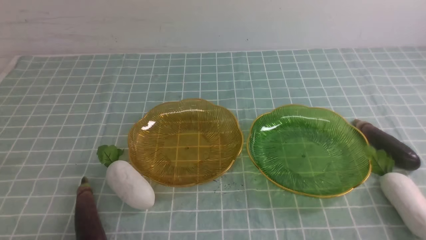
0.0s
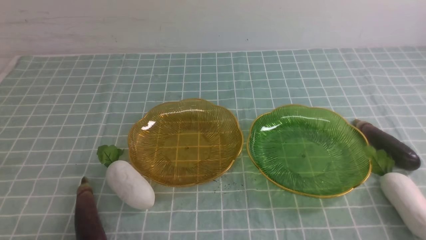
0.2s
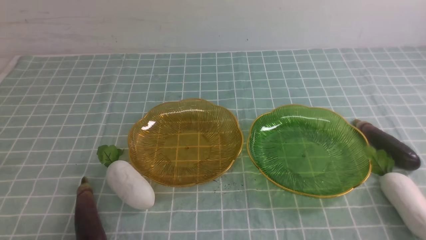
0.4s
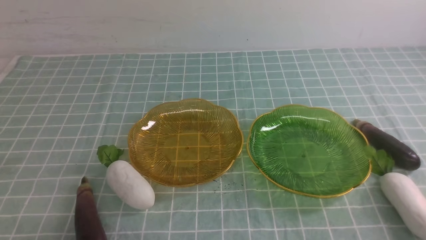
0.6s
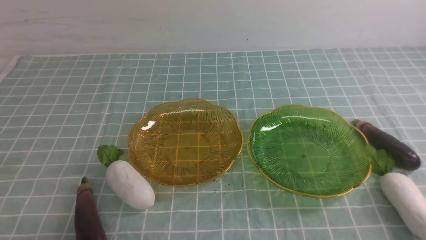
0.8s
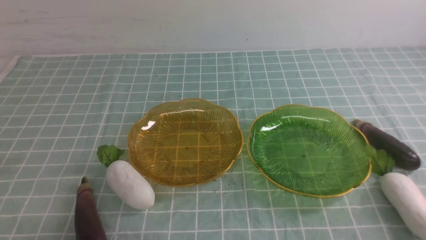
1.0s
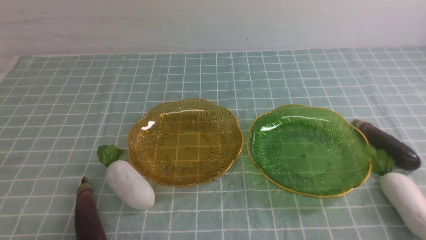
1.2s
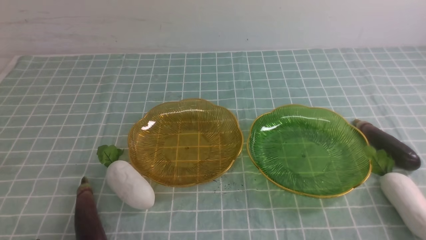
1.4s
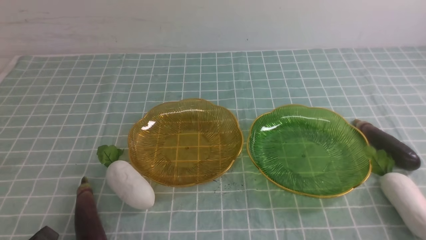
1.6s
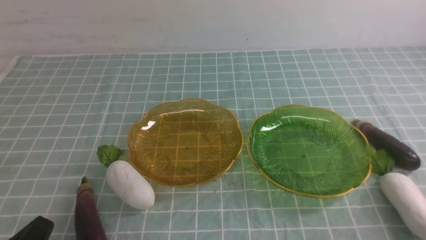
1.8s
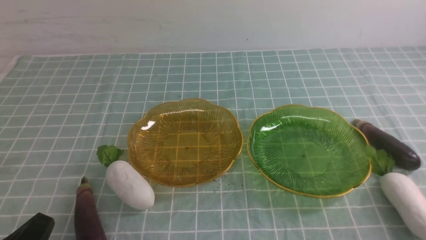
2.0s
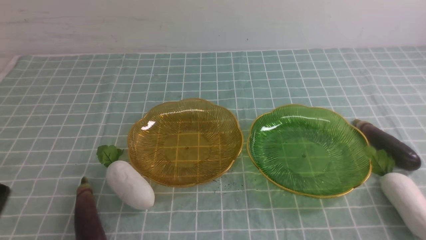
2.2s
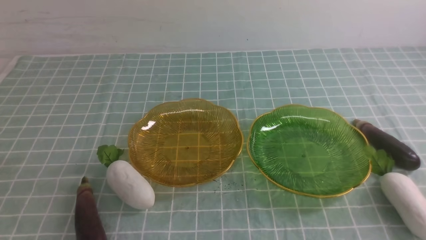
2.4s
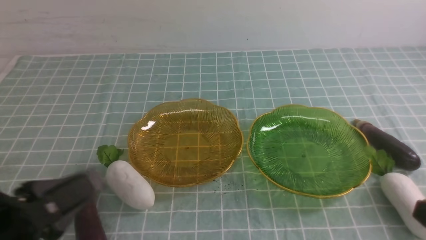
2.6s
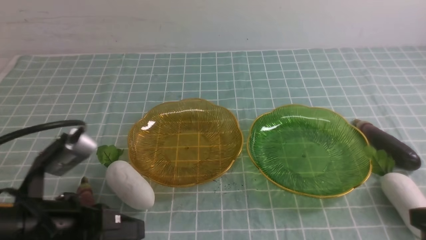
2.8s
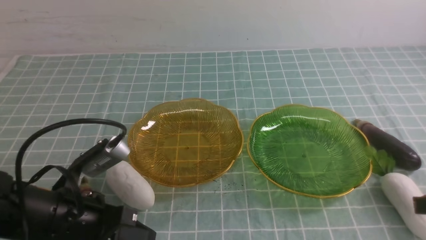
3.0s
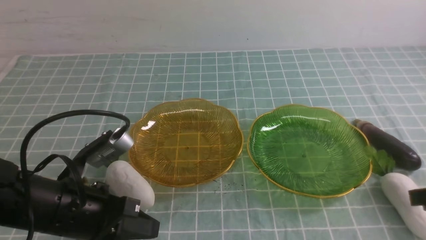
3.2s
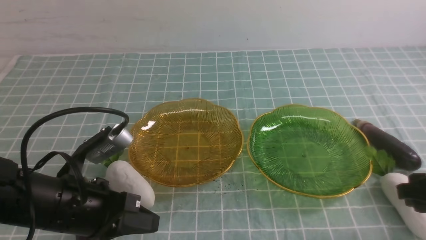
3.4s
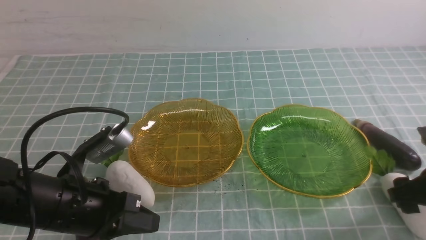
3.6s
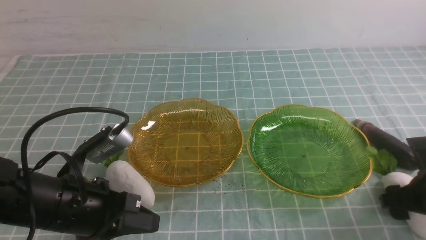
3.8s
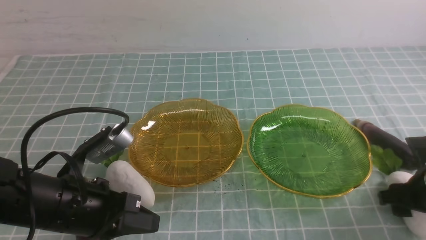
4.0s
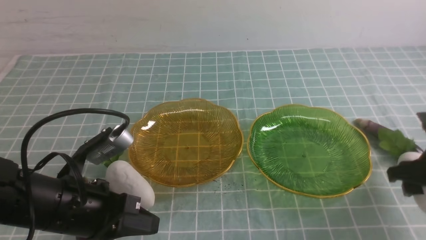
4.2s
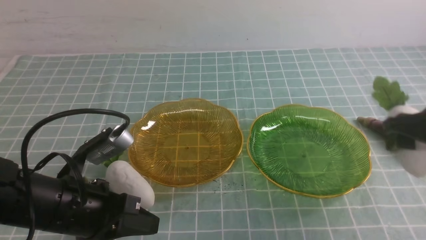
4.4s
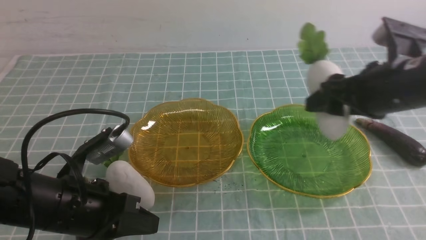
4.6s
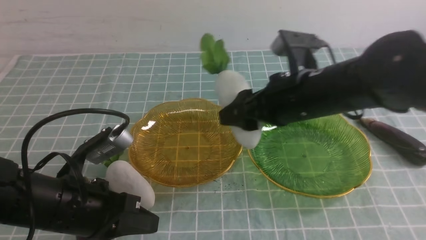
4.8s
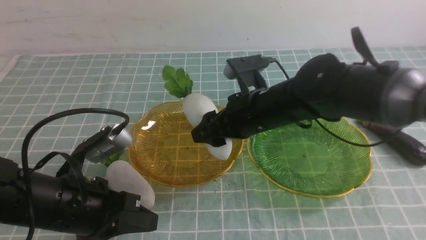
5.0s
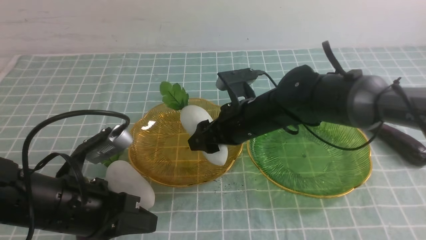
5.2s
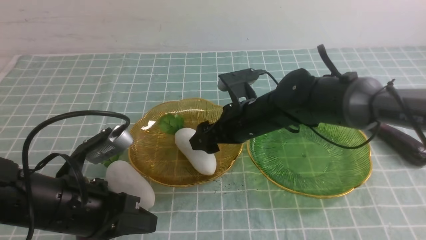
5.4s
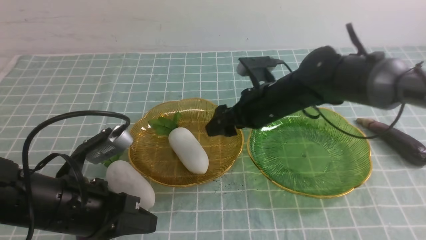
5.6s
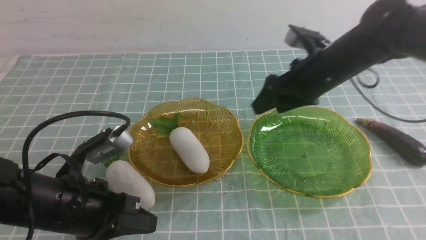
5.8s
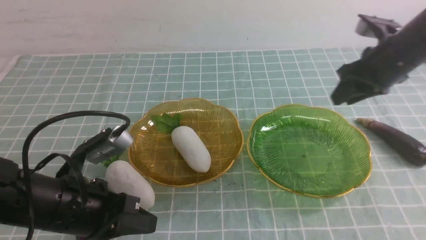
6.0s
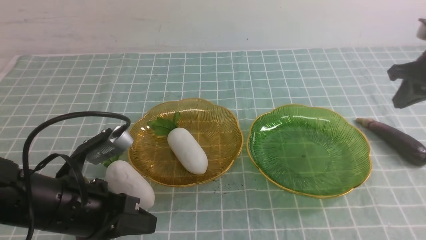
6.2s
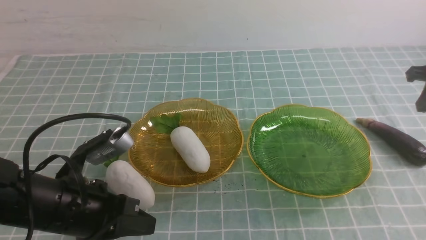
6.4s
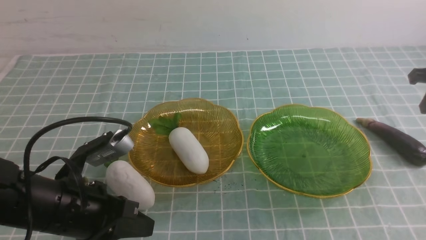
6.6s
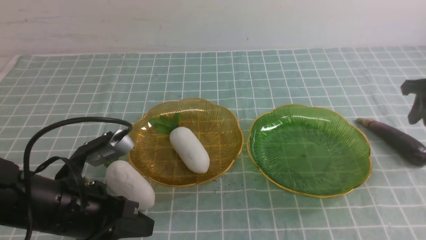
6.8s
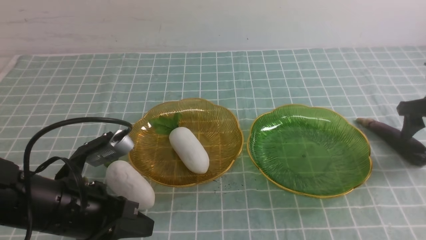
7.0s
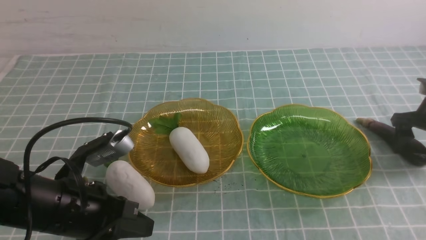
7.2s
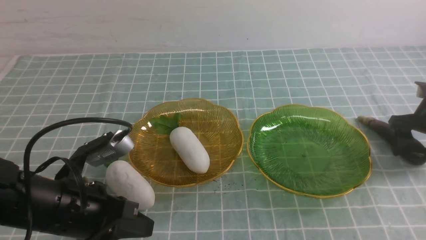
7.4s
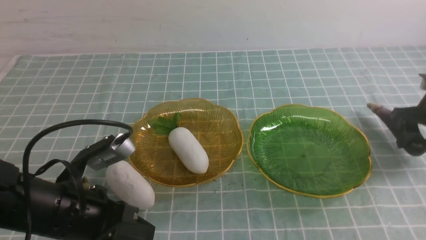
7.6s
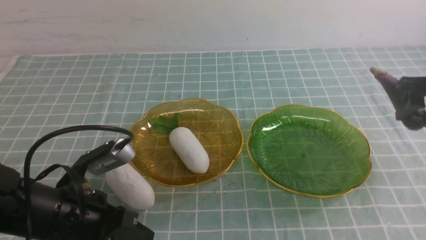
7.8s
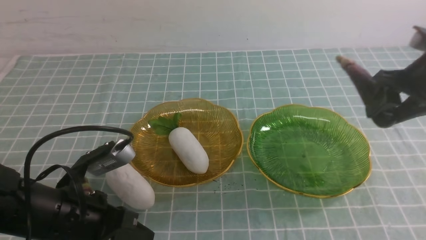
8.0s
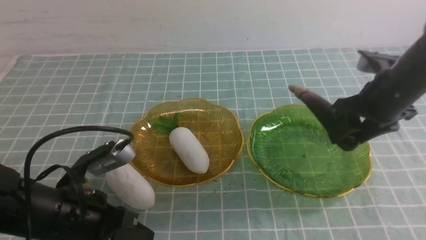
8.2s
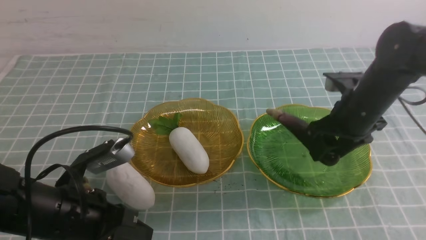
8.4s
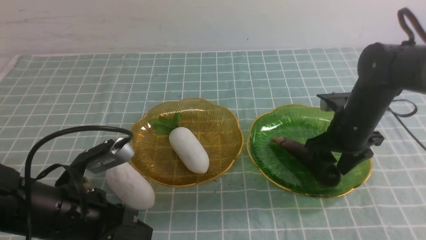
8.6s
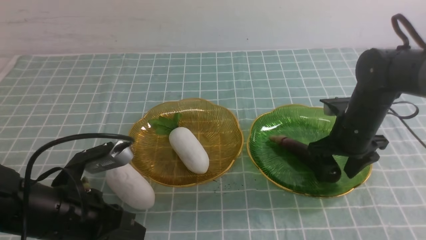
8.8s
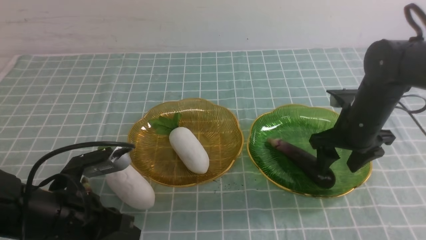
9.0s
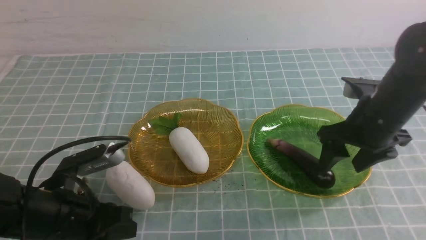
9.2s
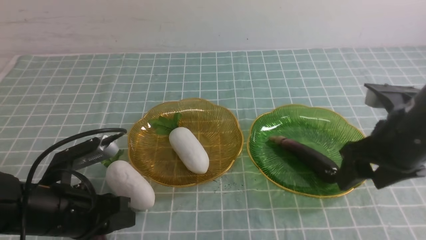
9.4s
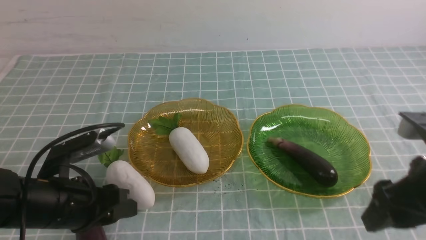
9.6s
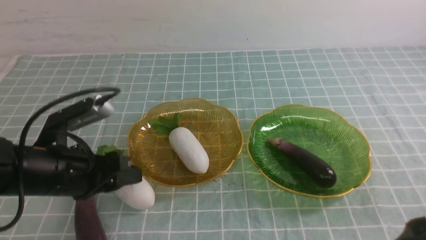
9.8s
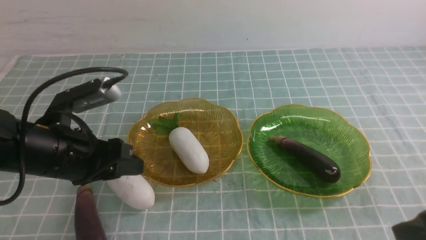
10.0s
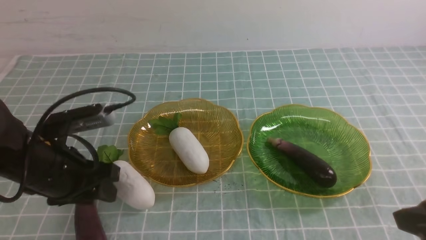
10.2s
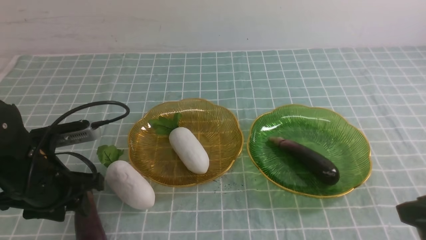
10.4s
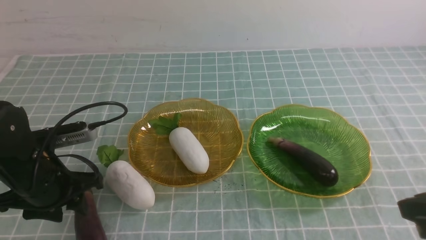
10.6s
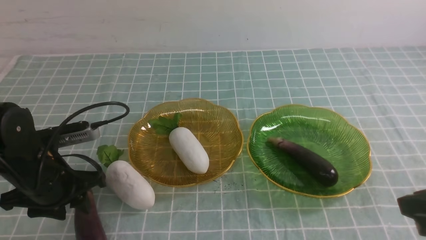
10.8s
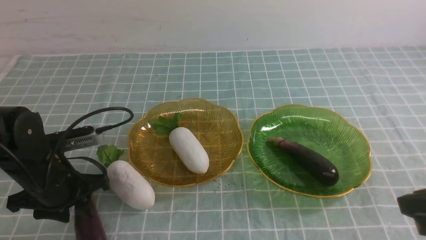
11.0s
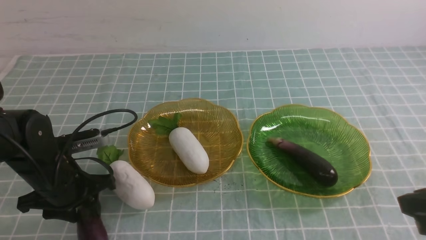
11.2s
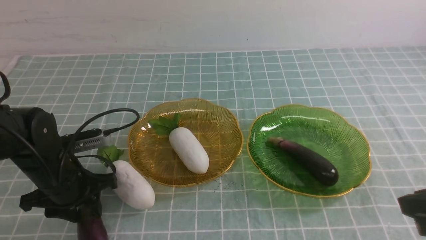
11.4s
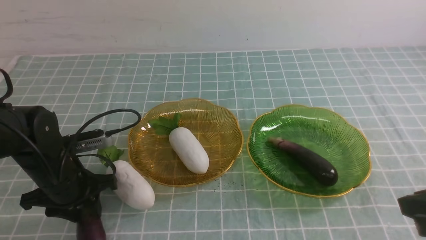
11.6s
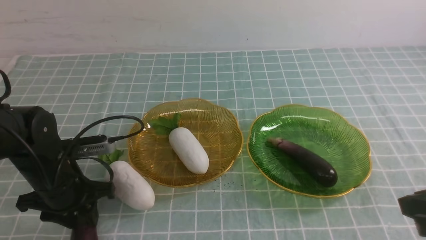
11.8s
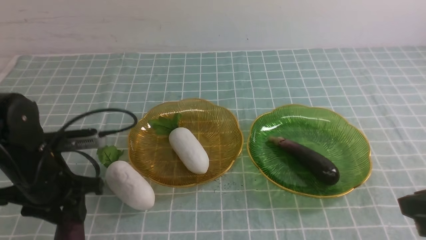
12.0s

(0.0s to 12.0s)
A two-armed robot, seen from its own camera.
Step, 0.0s - 5.4s: use the right arm to grab a radish and put it into the left plate.
Step, 5.6s - 9.0s: use the right arm to grab an eggplant and put it into the right plate.
1.6s - 3.0s: The right gripper goes about 15 cm forward and upward; the left gripper heads forward and to the right, covering roughly 15 cm.
3.0s - 4.4s: The right gripper heads forward, covering about 10 cm, and opens up.
4.4s - 6.0s: The right gripper shifts about 10 cm forward, moves roughly 20 cm to the left and comes back, and closes up.
6.0s - 7.6s: The right gripper moves to the right and downward, about 15 cm, and opens up.
7.6s - 9.0s: The right gripper goes approximately 15 cm to the left.
9.0s - 10.4s: The left gripper moves forward, some 5 cm, and opens its fingers; the right gripper moves backward, about 20 cm, and closes up.

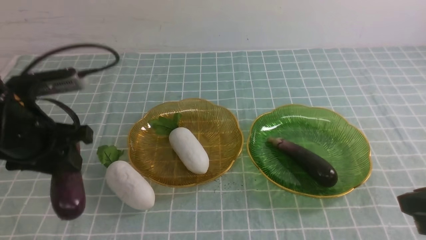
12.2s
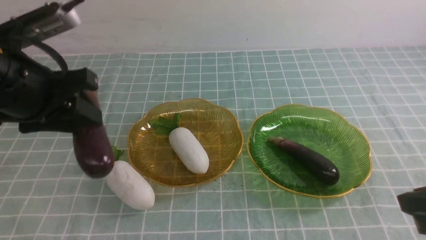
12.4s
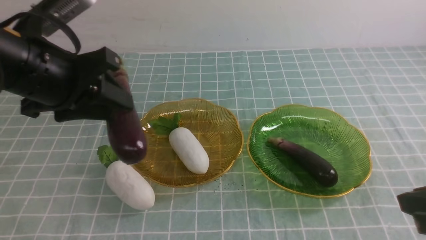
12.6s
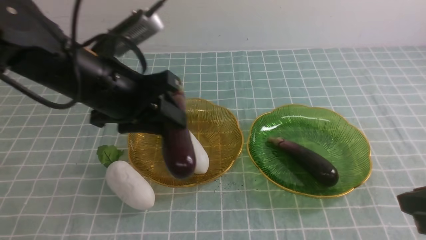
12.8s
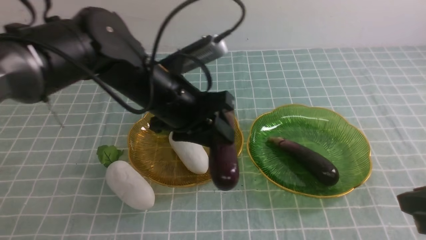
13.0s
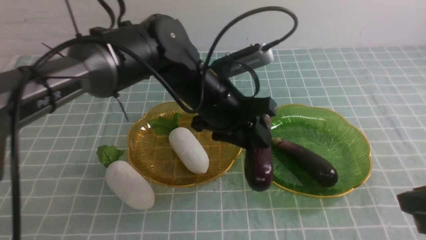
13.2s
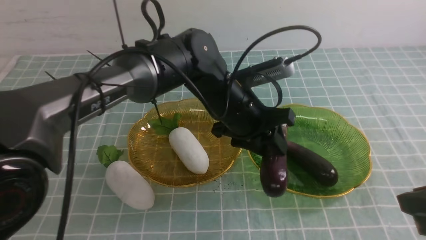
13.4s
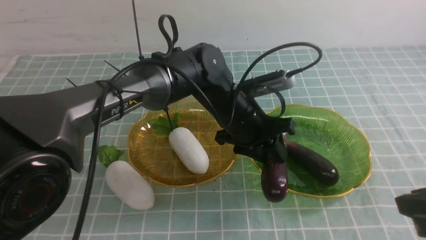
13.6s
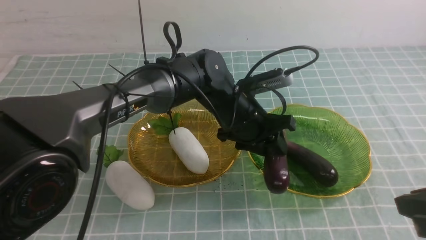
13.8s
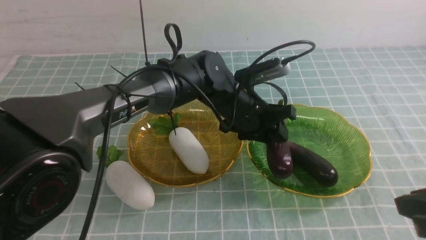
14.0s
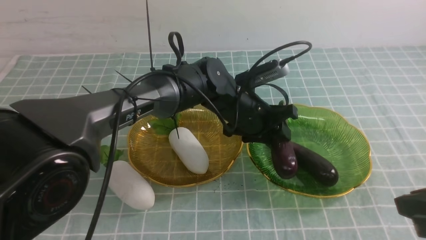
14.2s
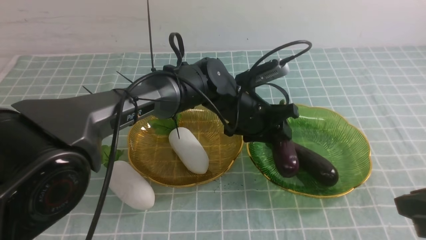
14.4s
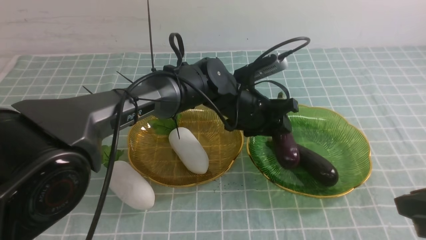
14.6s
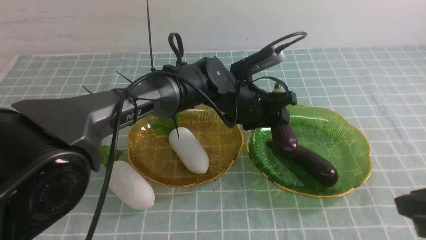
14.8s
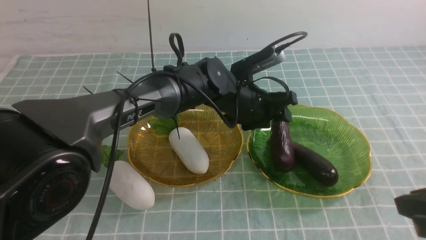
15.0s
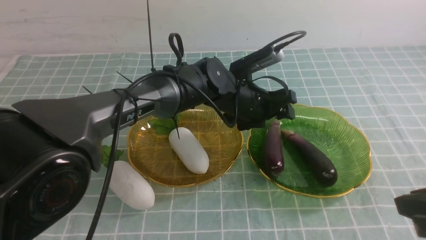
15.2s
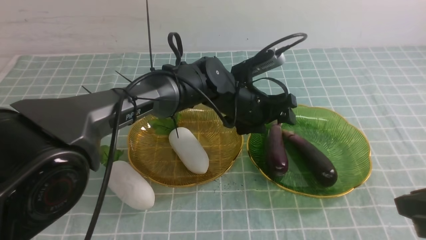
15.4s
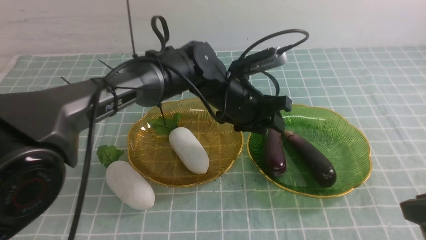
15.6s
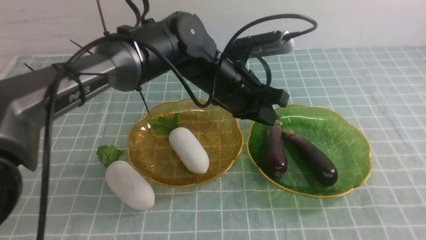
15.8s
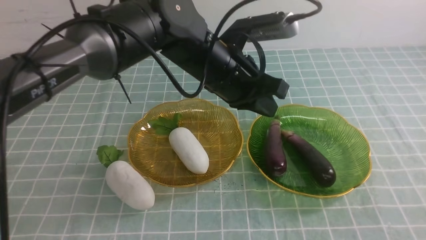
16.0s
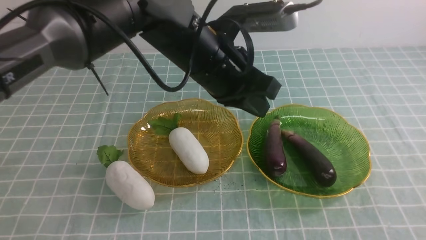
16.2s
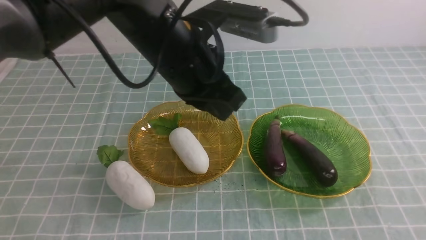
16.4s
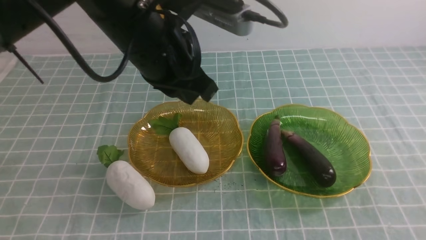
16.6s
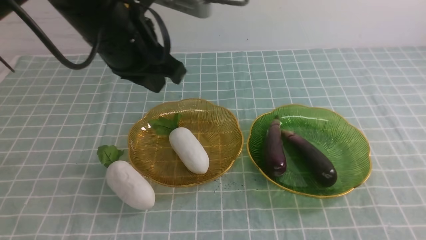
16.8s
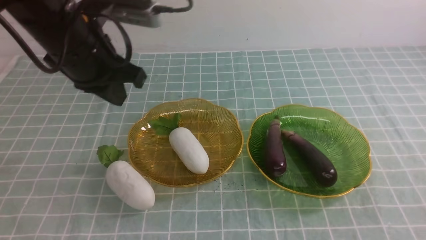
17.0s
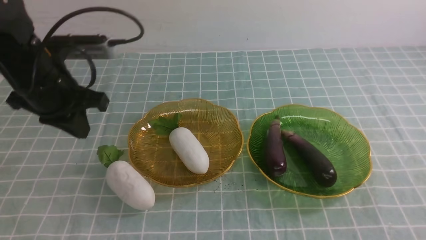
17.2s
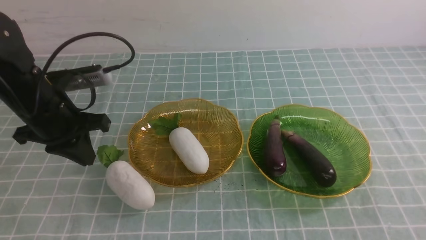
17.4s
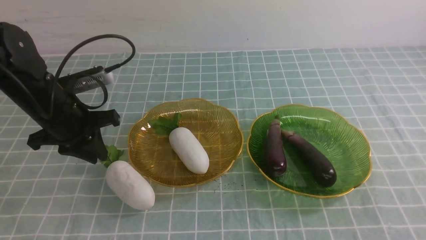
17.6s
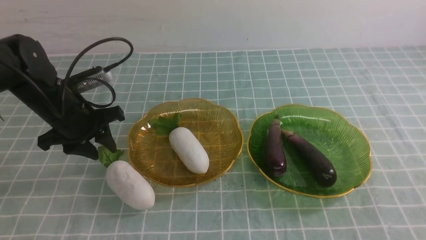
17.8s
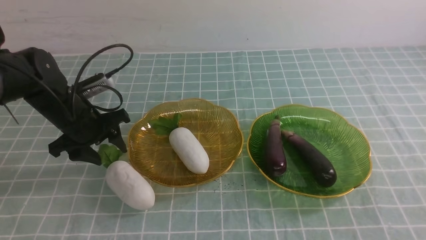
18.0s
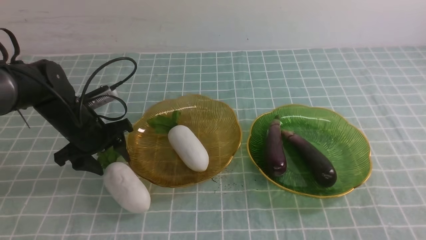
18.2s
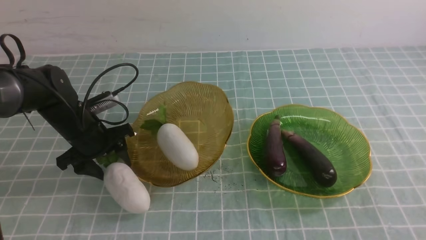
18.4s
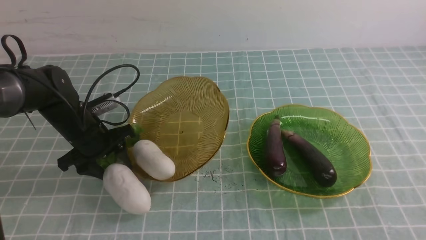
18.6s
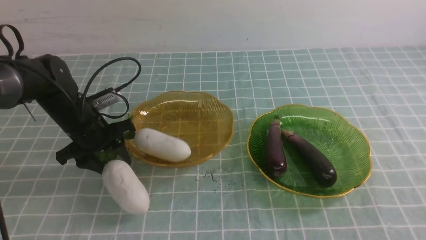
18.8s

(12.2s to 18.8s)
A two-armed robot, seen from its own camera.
Step, 12.2s - 15.2s: use the left arm to grab an eggplant and put it into the right plate.
12.2s - 13.8s: The left gripper goes roughly 30 cm to the right and forward.
13.8s - 15.4s: The grippers move only a little.
15.4s - 17.2s: The left gripper heads to the left, covering roughly 25 cm, and closes. The right gripper travels backward by some 10 cm, and closes up.
17.2s - 18.8s: The left gripper heads downward and forward, covering roughly 15 cm, and opens up.
